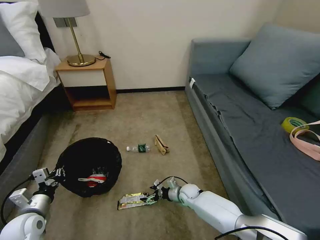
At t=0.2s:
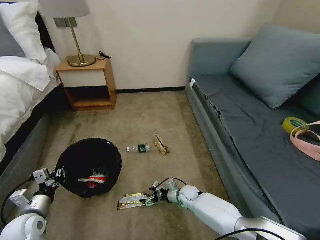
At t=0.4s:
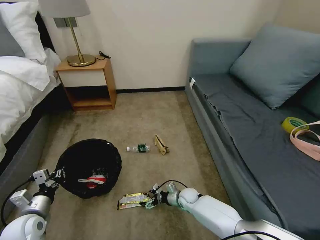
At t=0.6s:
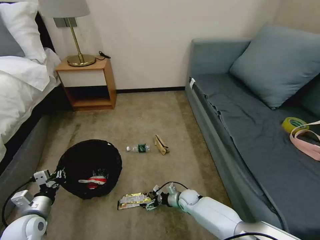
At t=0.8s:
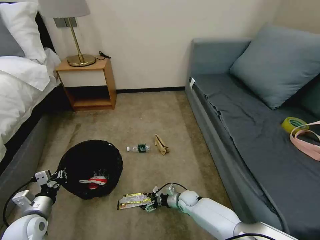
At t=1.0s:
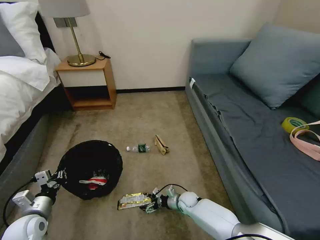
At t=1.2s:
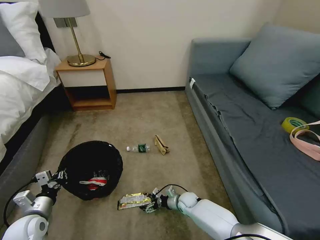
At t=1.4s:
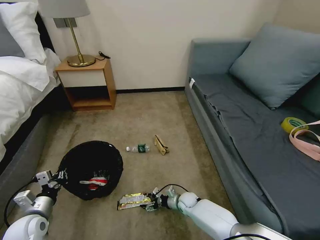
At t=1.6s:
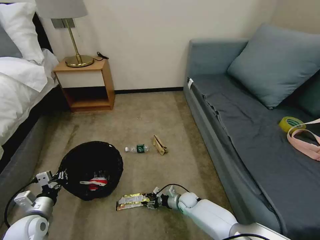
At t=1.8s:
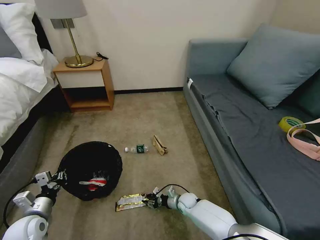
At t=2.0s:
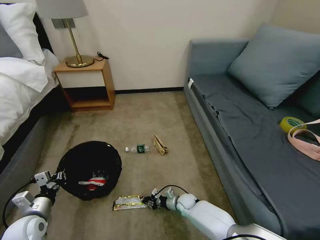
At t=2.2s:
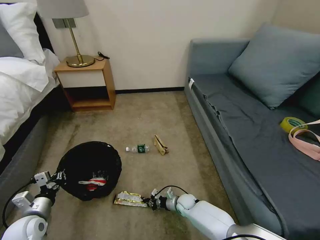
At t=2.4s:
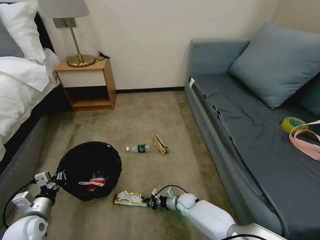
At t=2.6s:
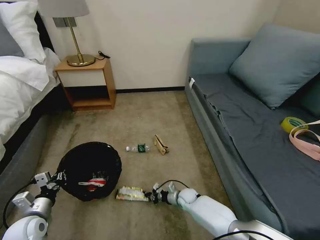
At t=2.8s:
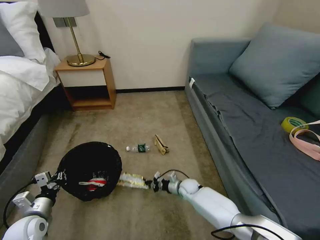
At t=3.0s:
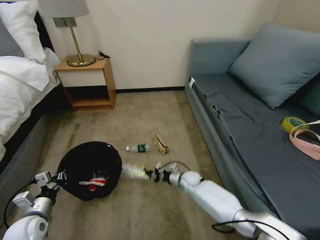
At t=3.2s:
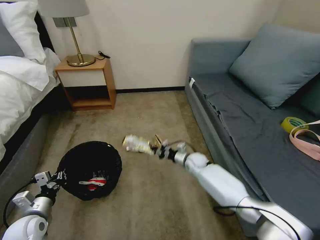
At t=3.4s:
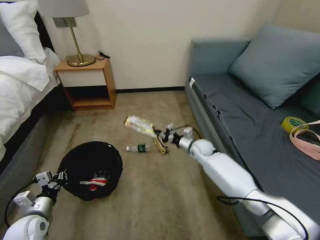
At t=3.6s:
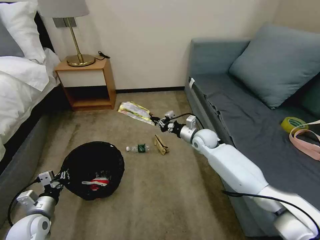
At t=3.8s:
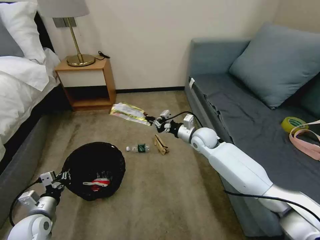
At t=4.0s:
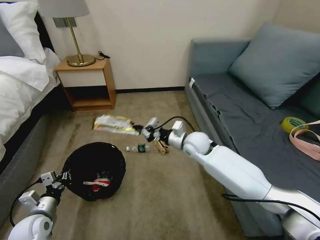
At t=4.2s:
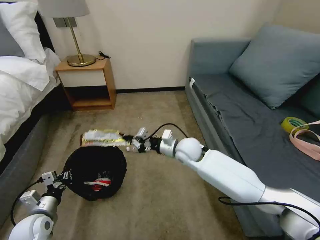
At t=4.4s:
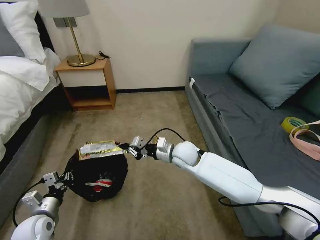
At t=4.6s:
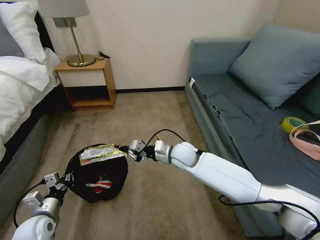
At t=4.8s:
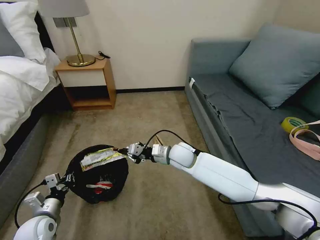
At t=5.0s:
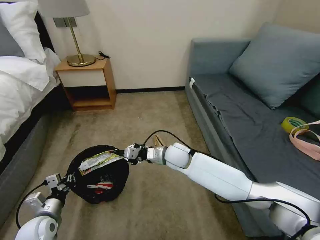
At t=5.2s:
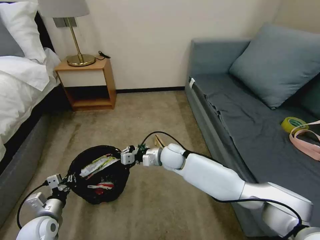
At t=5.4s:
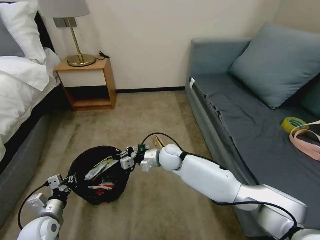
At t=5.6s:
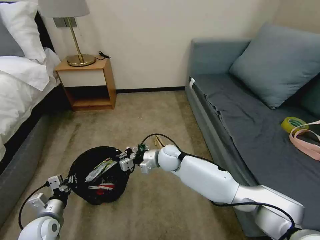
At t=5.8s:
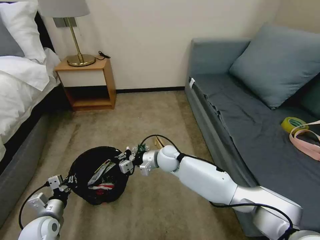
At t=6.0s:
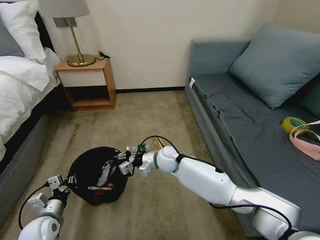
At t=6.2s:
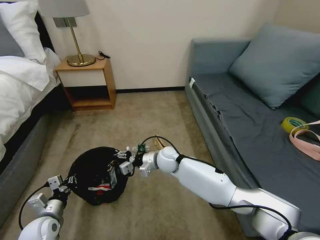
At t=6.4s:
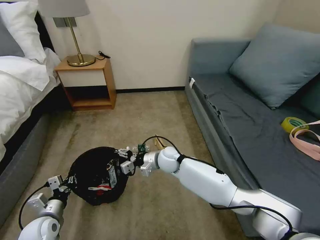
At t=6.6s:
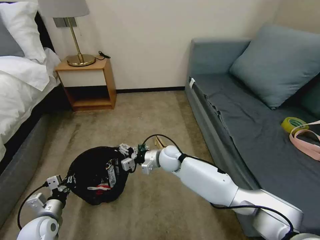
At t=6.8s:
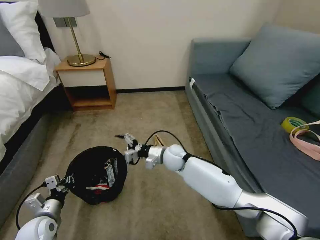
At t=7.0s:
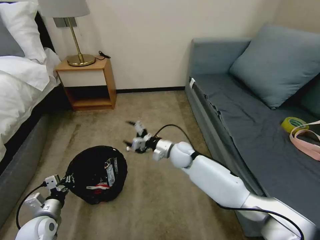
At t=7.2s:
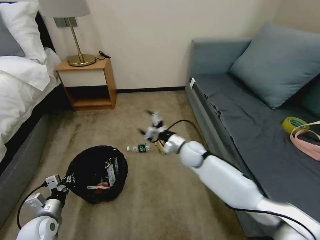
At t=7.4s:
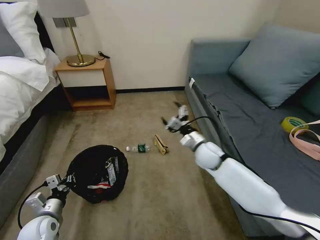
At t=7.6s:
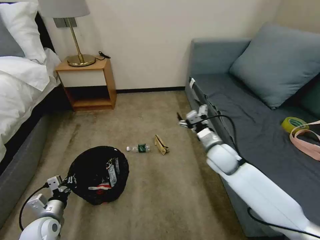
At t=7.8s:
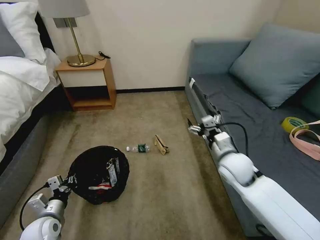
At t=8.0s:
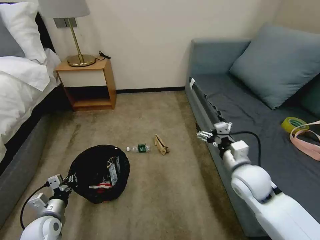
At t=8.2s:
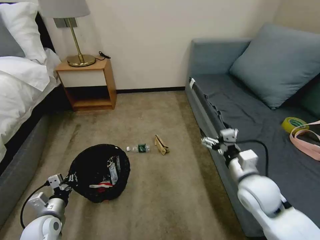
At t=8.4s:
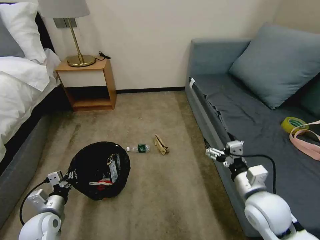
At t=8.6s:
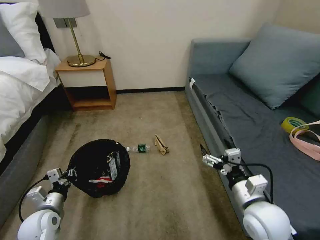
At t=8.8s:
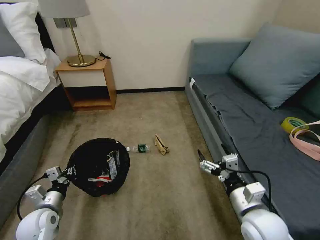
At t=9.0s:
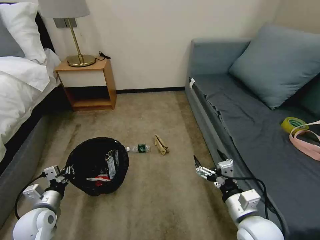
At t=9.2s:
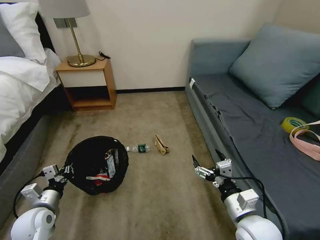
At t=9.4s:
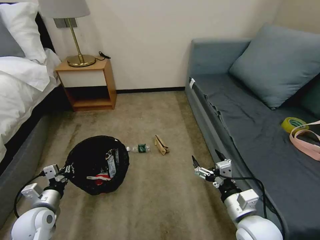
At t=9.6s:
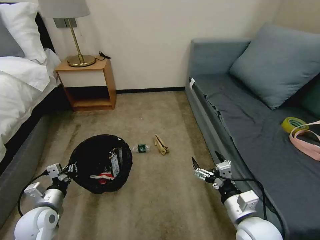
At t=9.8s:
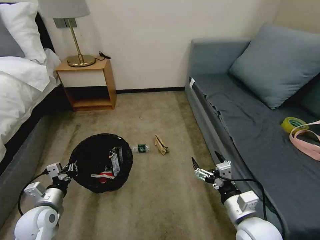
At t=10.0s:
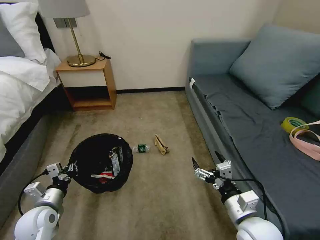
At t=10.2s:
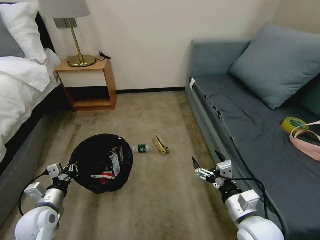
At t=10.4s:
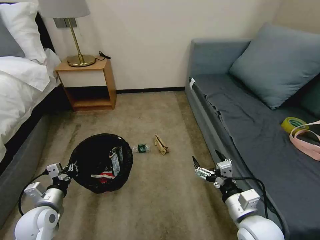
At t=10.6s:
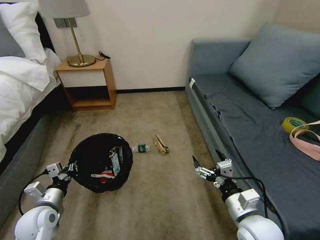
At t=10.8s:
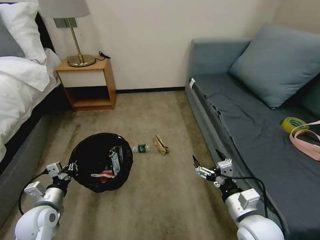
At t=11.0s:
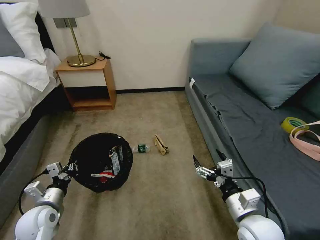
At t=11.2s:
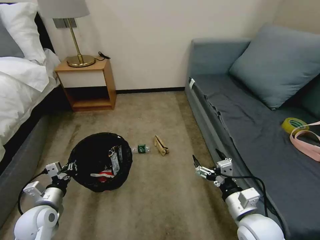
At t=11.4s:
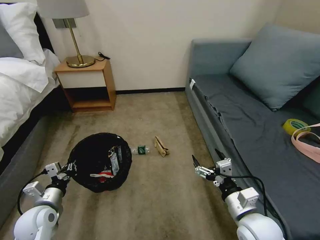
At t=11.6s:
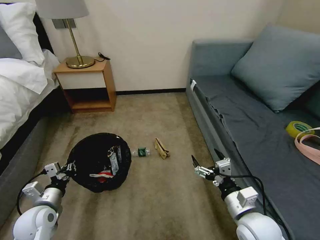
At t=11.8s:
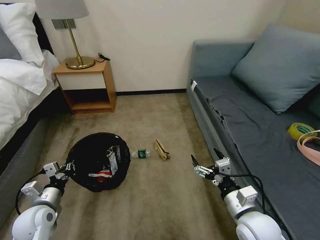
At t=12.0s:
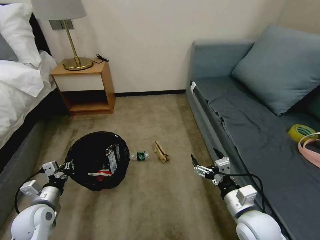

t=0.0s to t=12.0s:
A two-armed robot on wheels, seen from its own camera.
Task of the whole recording: Pick up the trash bin, then pick up the garbage on the floor and place it into the trash bin.
t=0.0s to t=1.6s: The right gripper closes up.
t=1.6s to t=3.0s: The right gripper shifts some 10 cm upward and forward, and closes up.
t=3.0s to t=4.4s: The right gripper goes roughly 20 cm upward.
t=4.4s to t=6.0s: The right gripper heads to the left, covering approximately 5 cm.
t=6.0s to t=7.6s: The right gripper travels to the right by some 15 cm, and opens.
t=7.6s to t=9.0s: The right gripper shifts some 25 cm backward.
t=9.0s to t=10.4s: The grippers make only small movements.
t=10.4s to t=12.0s: Both grippers stay about where they are.

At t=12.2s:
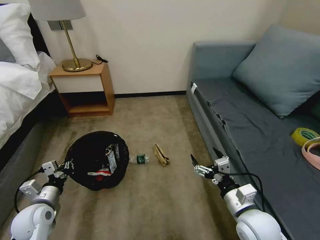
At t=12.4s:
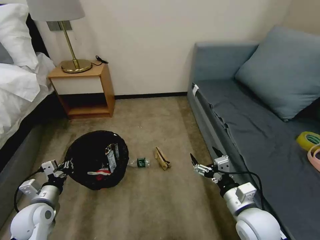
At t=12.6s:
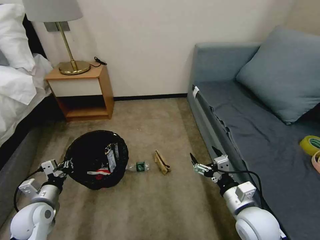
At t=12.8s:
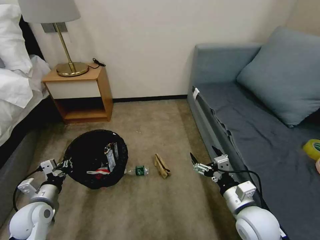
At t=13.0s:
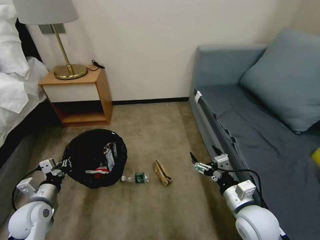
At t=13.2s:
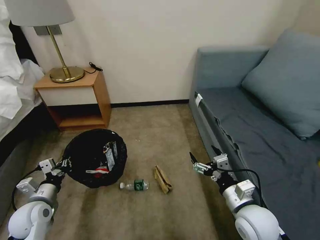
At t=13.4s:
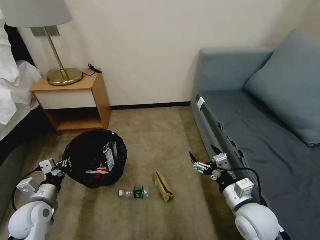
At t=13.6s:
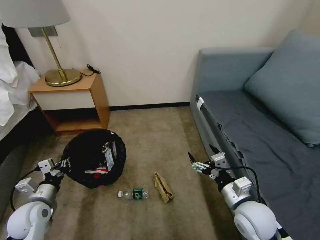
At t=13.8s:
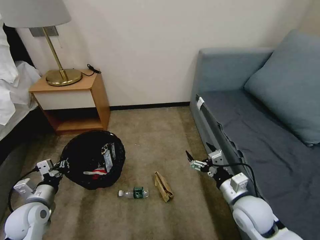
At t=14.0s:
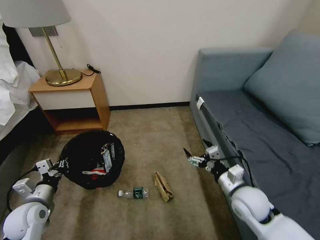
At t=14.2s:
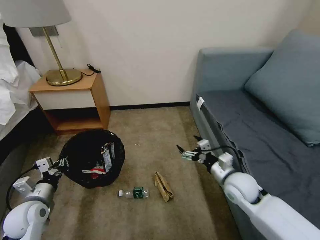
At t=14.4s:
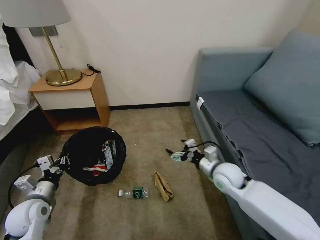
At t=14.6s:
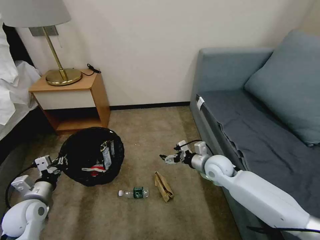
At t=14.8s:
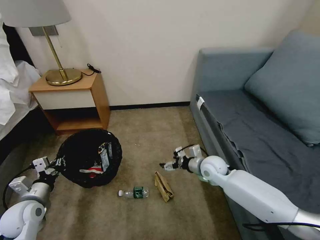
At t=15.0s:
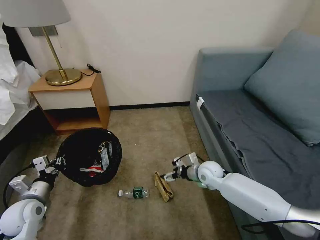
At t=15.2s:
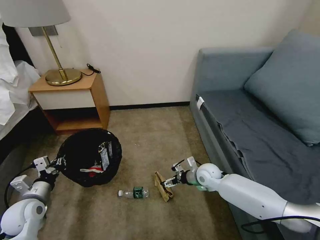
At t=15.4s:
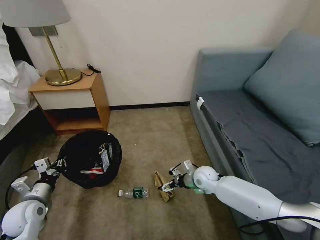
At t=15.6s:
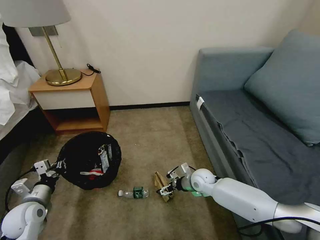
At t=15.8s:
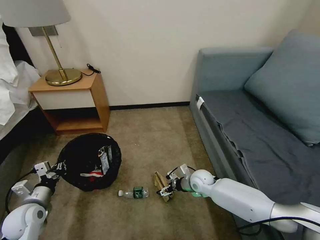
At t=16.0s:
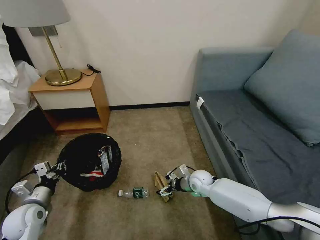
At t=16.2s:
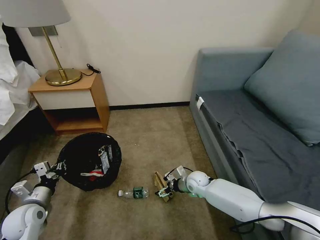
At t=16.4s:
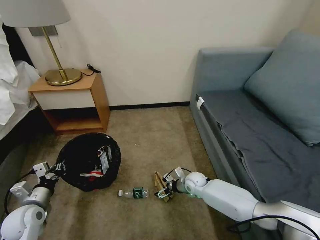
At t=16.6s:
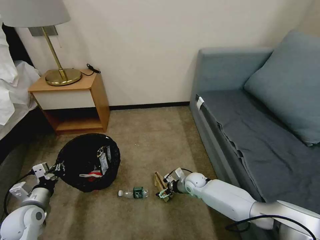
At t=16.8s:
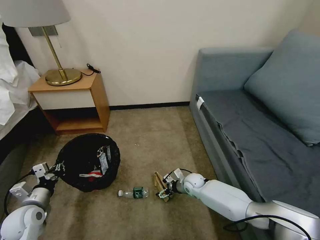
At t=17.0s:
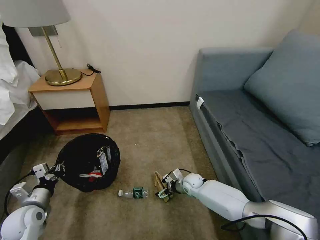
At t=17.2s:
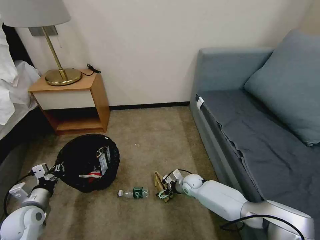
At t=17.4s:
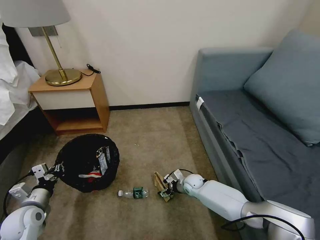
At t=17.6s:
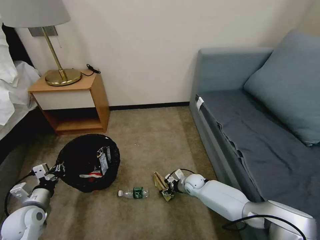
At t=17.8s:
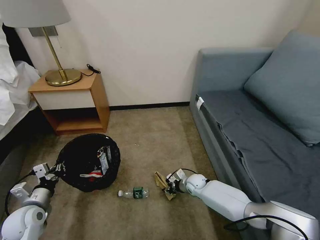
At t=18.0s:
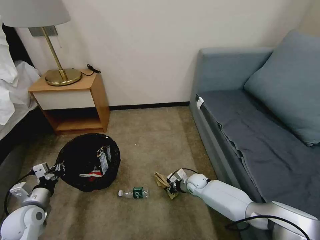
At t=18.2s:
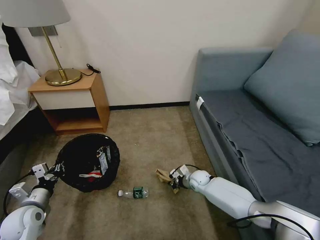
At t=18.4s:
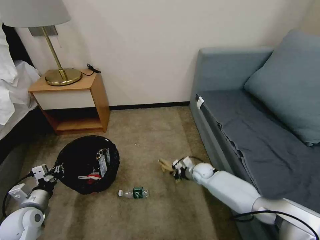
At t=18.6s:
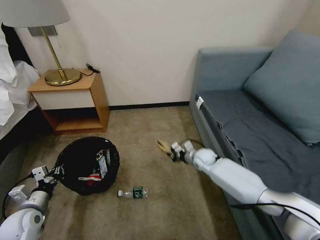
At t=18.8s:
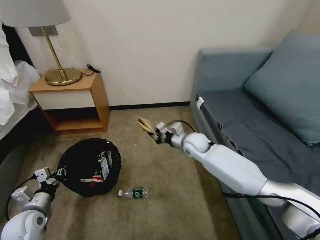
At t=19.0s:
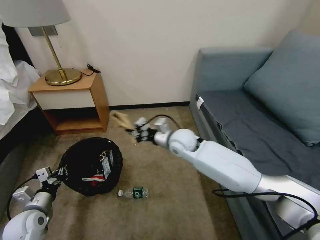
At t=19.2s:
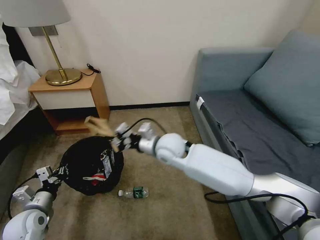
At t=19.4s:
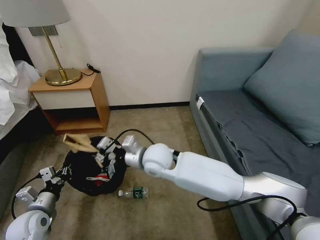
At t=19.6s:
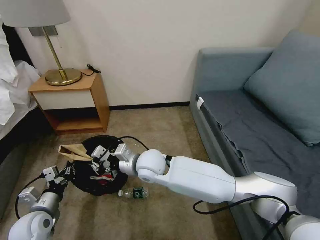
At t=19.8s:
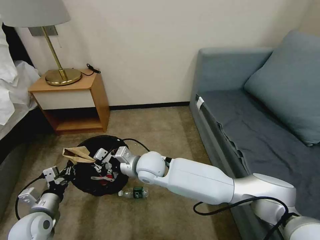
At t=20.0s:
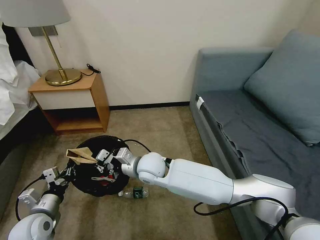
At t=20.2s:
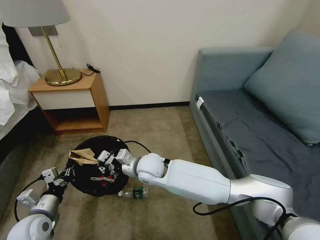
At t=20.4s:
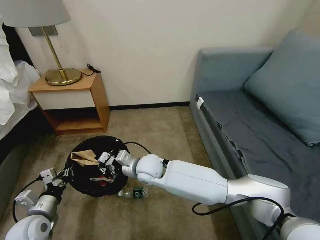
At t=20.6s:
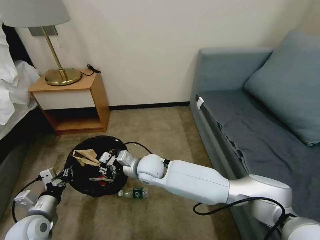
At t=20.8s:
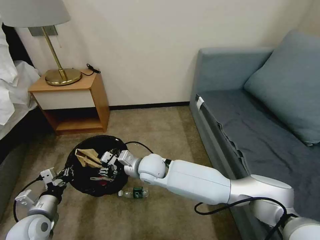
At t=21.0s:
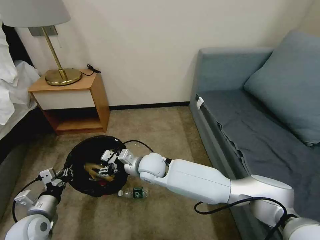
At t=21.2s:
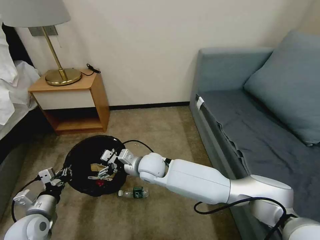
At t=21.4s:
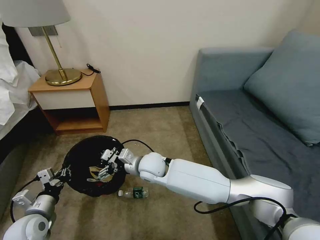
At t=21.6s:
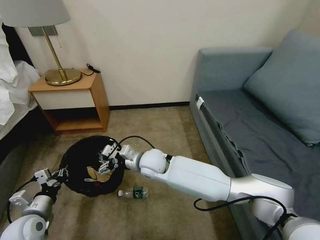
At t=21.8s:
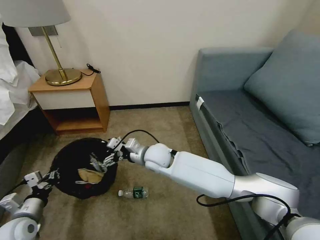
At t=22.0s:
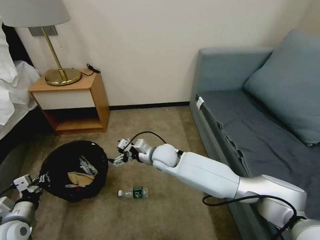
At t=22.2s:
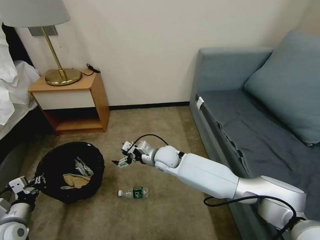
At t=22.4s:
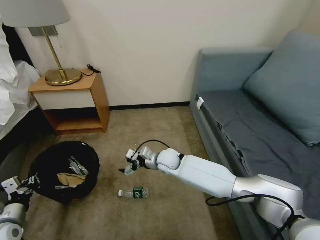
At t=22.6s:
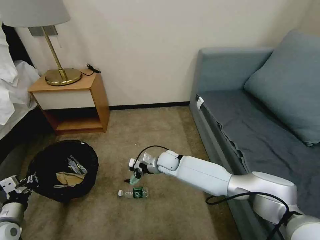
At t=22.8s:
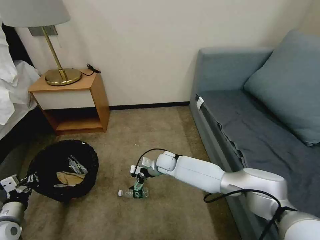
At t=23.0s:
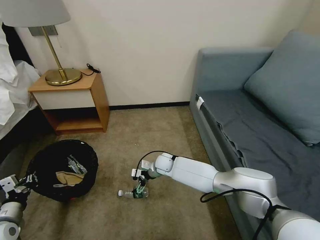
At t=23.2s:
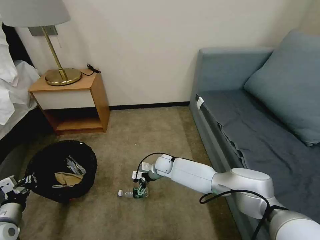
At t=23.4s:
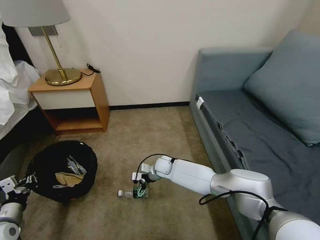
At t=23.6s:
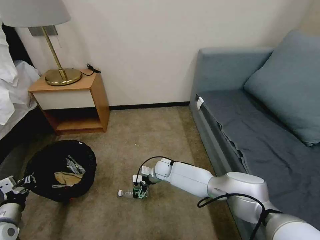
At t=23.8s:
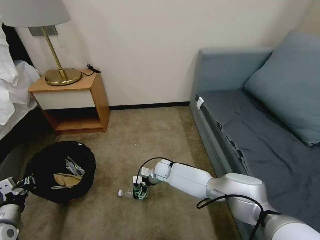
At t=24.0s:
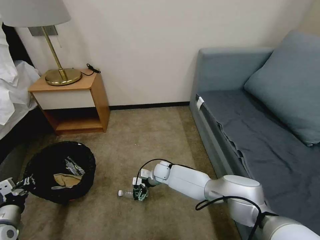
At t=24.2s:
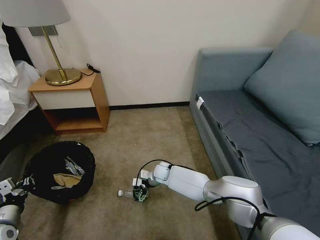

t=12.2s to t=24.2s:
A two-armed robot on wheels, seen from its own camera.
Task of the whole recording: Pick up the trash bin, then pick up the garbage on the floor and place it into the trash bin.
t=13.8s to t=15.2s: The right gripper is displaced forward and downward by approximately 20 cm.
t=15.2s to t=16.6s: The right gripper travels downward by about 10 cm.
t=16.6s to t=18.2s: The right gripper closes.
t=18.2s to t=19.8s: The right gripper shifts some 35 cm upward and to the left.
t=19.8s to t=21.2s: The right gripper opens its fingers.
t=21.2s to t=22.6s: The left gripper shifts about 10 cm to the left; the right gripper shifts approximately 15 cm downward, forward and to the right.
t=22.6s to t=24.2s: The right gripper is displaced downward by approximately 10 cm.
